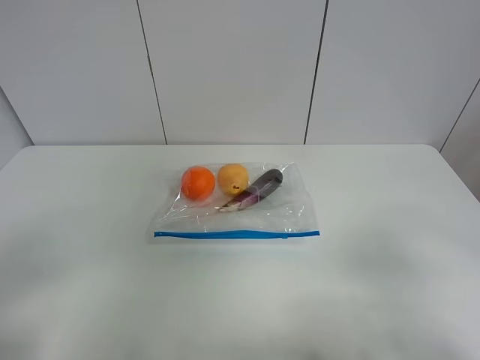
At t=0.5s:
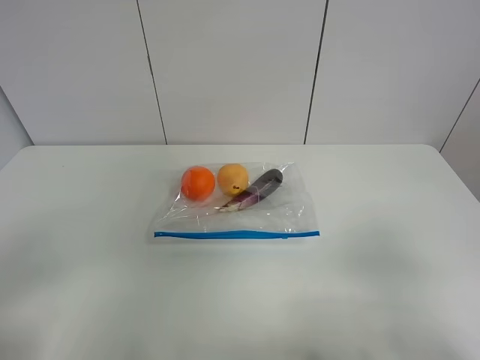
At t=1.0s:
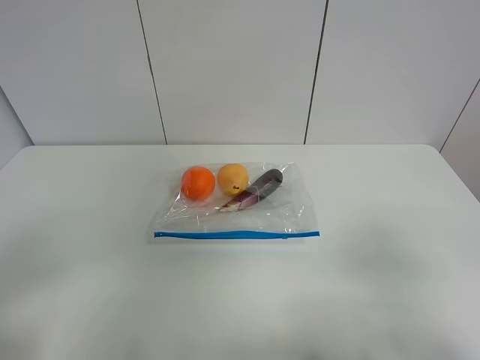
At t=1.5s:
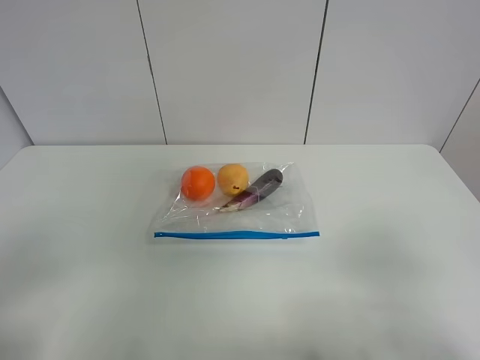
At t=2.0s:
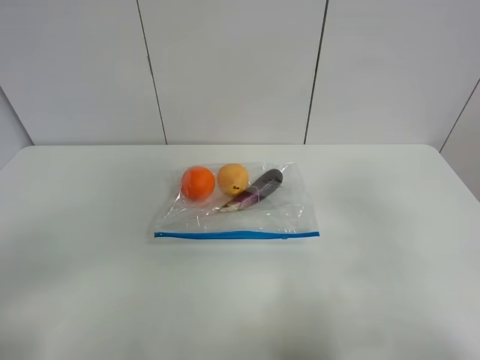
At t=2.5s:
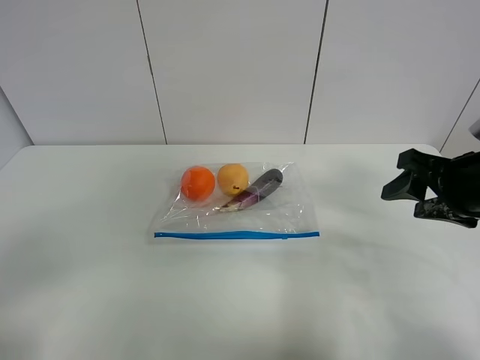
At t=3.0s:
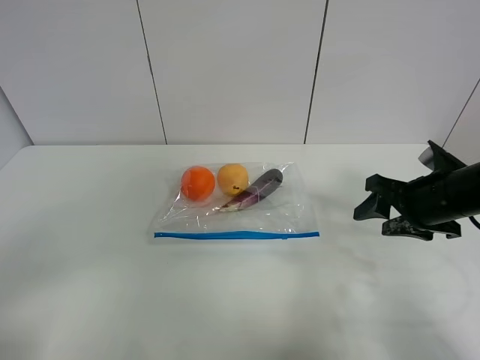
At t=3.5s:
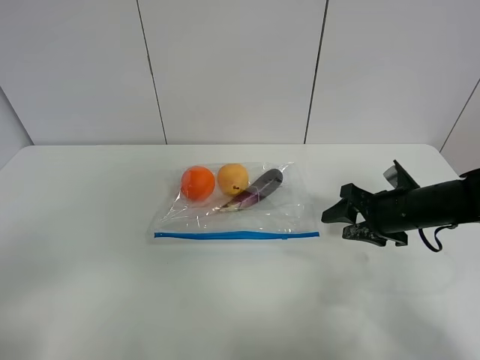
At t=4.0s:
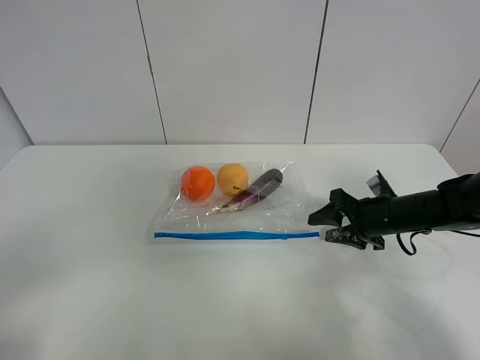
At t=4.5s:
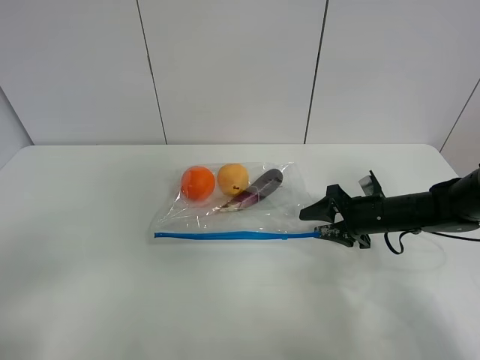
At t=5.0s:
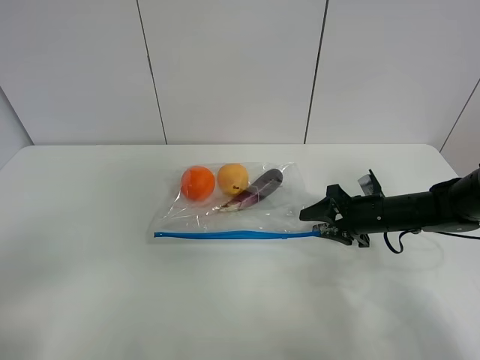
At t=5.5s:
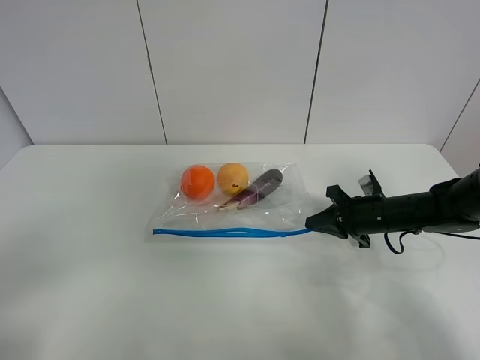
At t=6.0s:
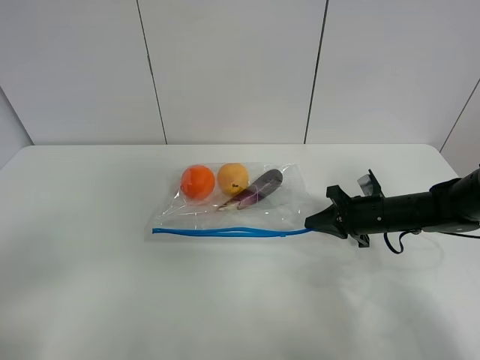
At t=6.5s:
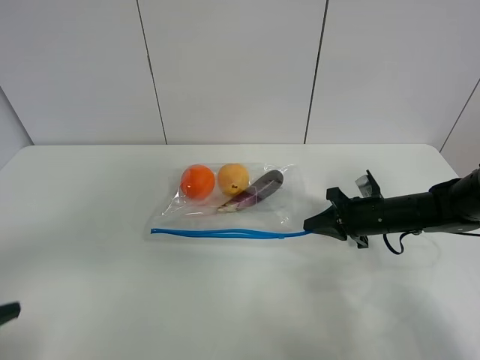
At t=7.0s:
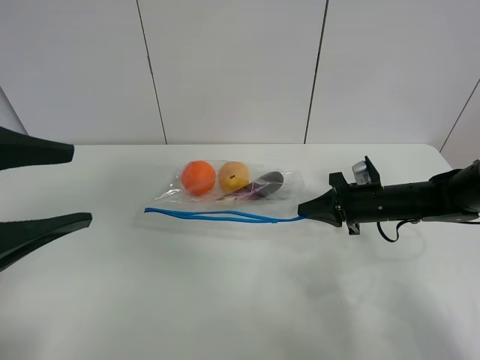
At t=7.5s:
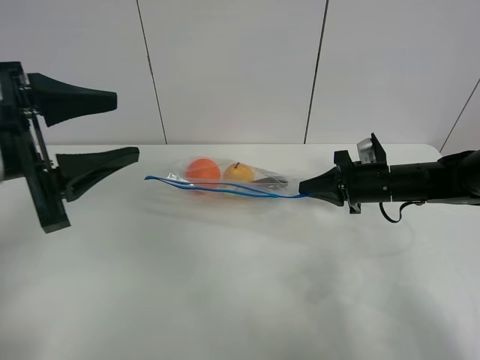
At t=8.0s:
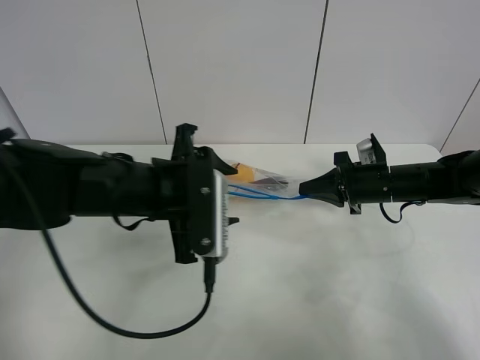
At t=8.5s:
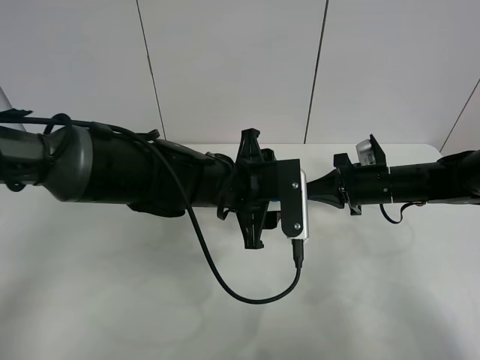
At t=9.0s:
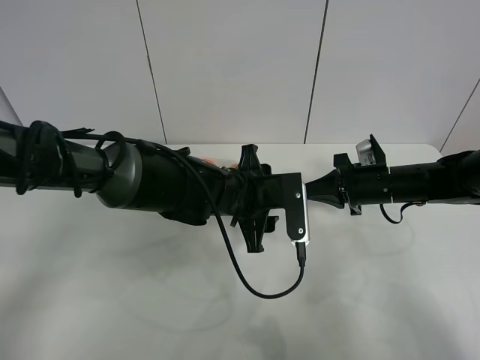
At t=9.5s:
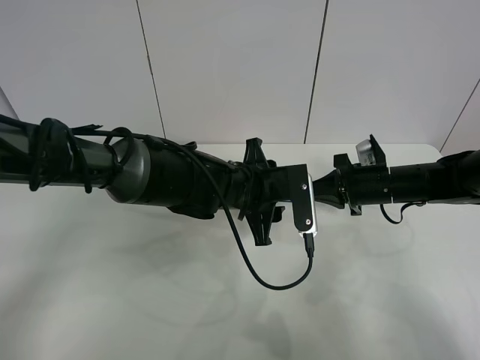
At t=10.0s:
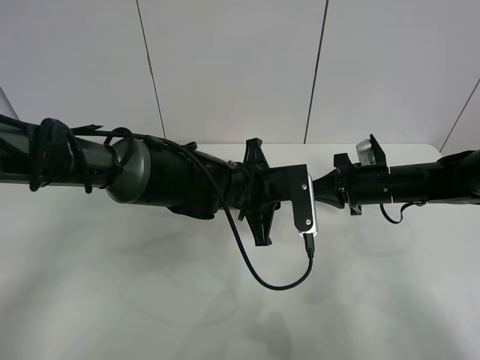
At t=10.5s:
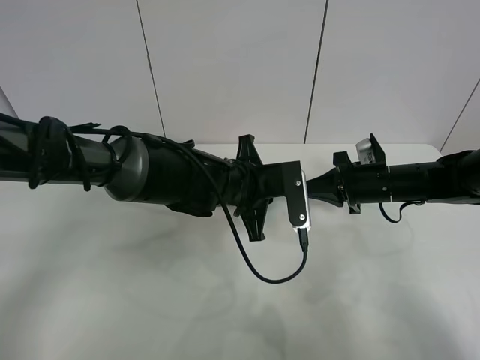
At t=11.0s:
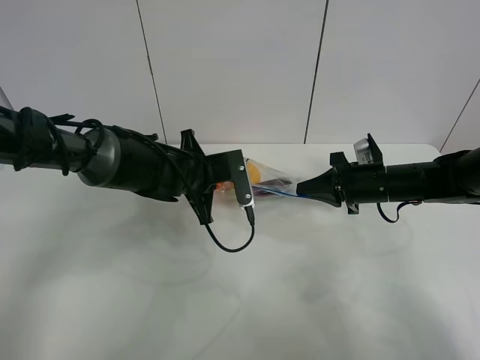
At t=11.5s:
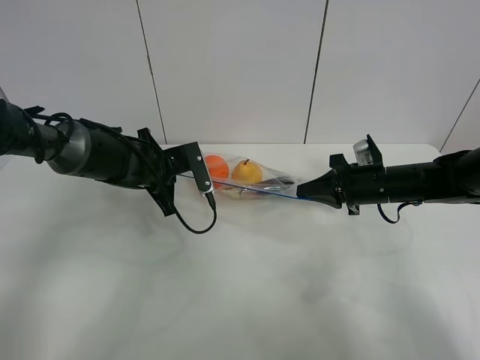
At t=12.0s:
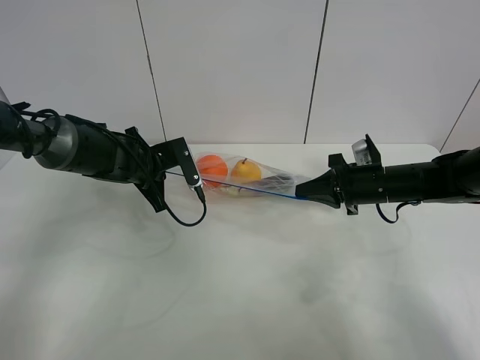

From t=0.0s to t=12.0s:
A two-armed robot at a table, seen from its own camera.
Step, from t=0.0s to t=5.5s: Grasp the fruit bag with right gripper.
Step, from t=6.0s to t=7.5s: Lift the fruit bag with your right gripper.
From t=0.0s to t=2.0s: The right gripper travels forward and upward by approximately 10 cm.
From t=2.0s to t=4.0s: The right gripper goes approximately 30 cm downward and forward.
From t=4.0s to t=6.0s: The right gripper closes up.
From t=6.0s to t=8.0s: The left gripper travels forward and to the right by approximately 35 cm; the right gripper travels upward by some 5 cm.
From t=8.0s to t=10.0s: The left gripper is displaced to the right, forward and downward by roughly 15 cm, and closes its fingers.
From t=10.0s to t=12.0s: The left gripper travels to the left and forward by about 20 cm.

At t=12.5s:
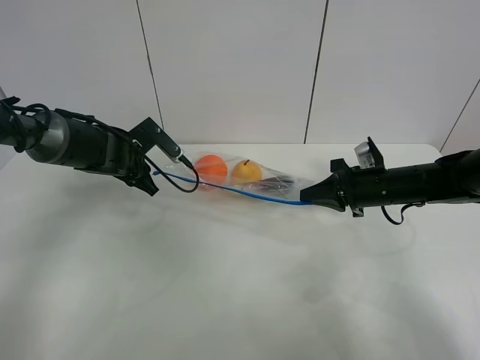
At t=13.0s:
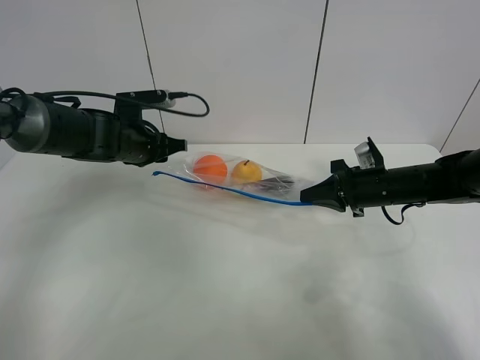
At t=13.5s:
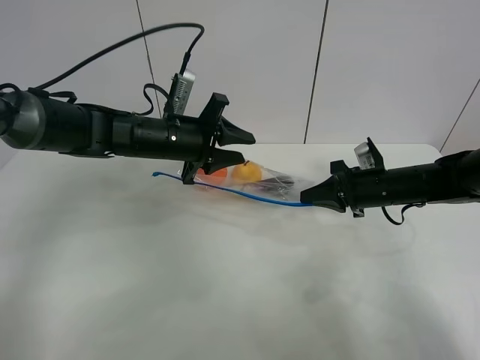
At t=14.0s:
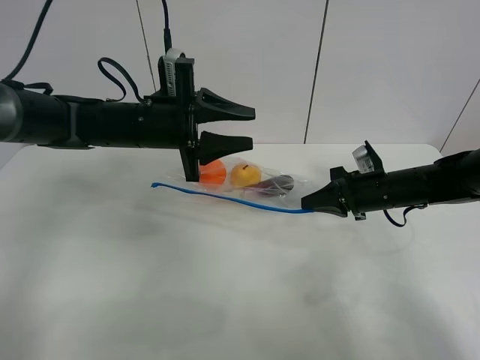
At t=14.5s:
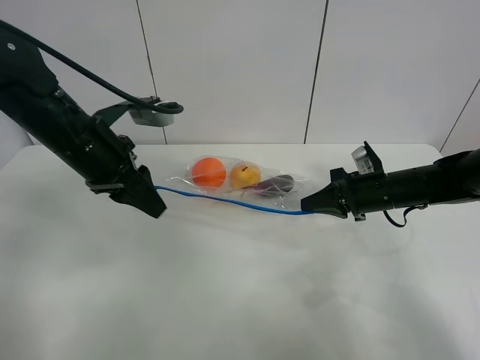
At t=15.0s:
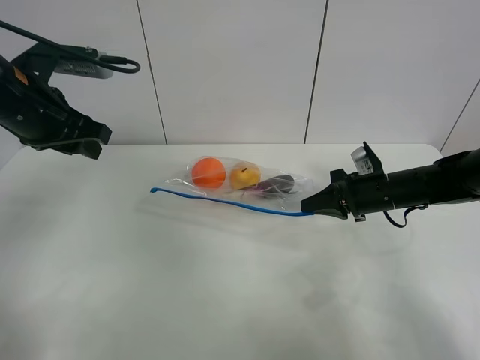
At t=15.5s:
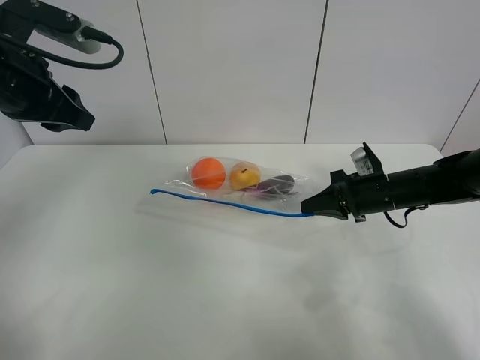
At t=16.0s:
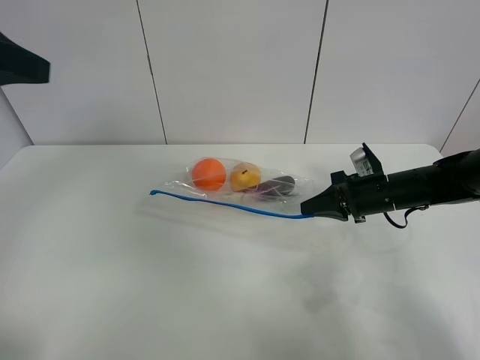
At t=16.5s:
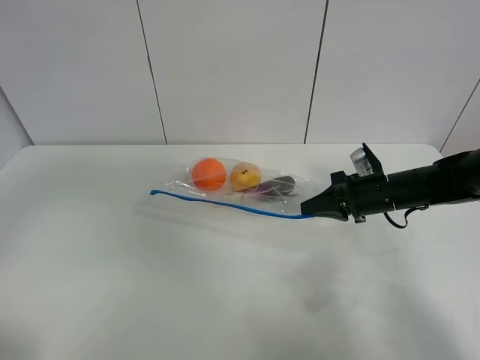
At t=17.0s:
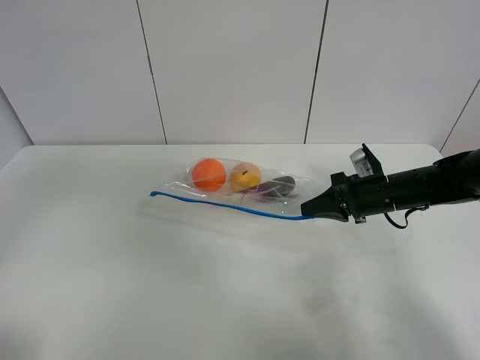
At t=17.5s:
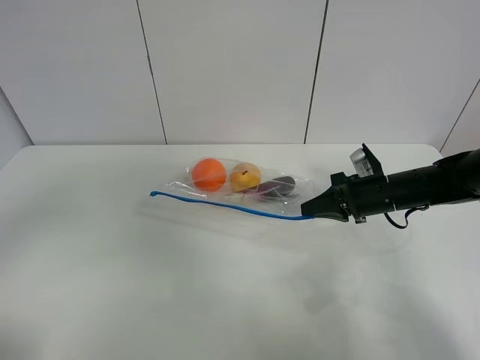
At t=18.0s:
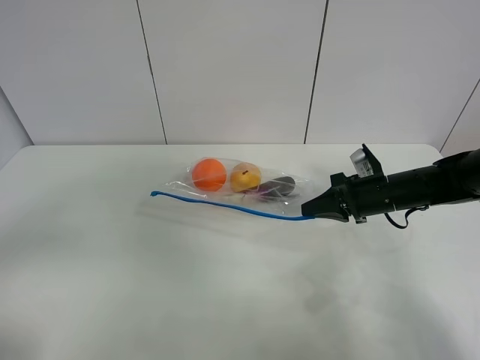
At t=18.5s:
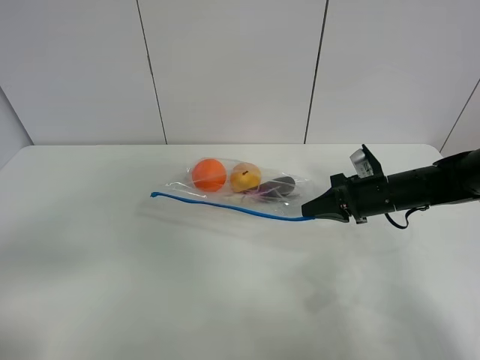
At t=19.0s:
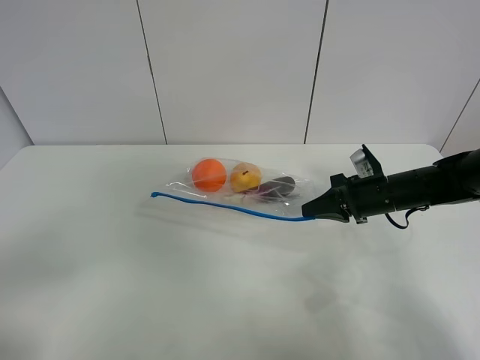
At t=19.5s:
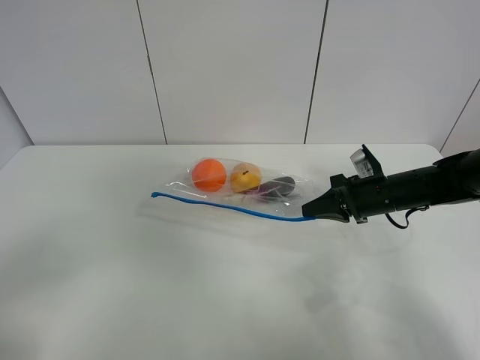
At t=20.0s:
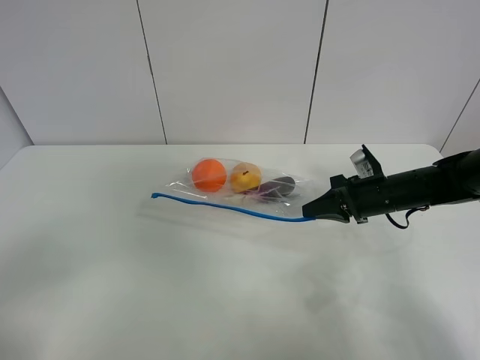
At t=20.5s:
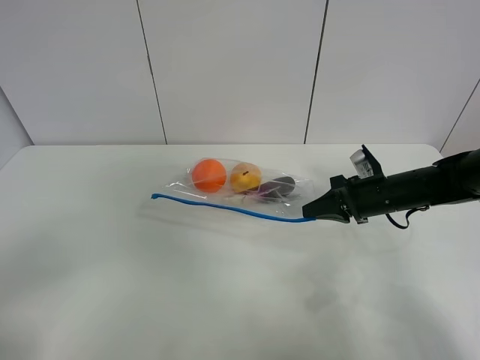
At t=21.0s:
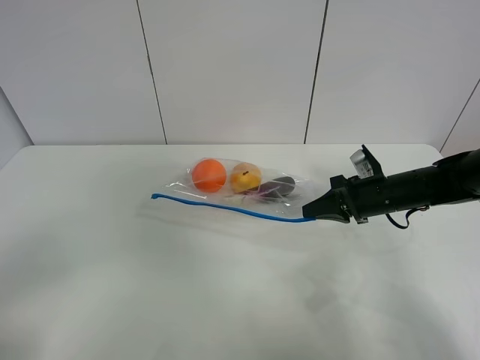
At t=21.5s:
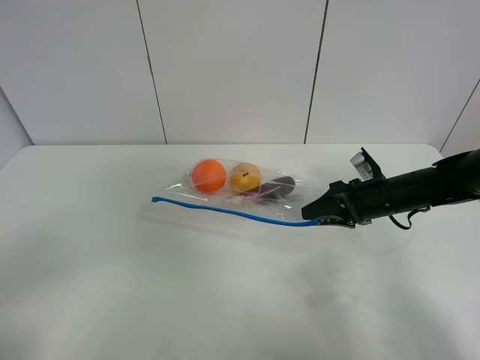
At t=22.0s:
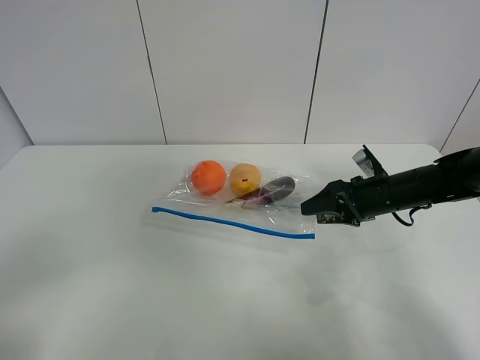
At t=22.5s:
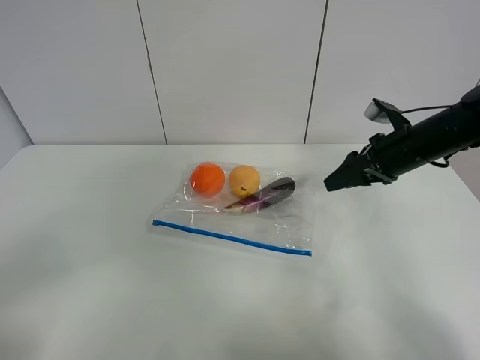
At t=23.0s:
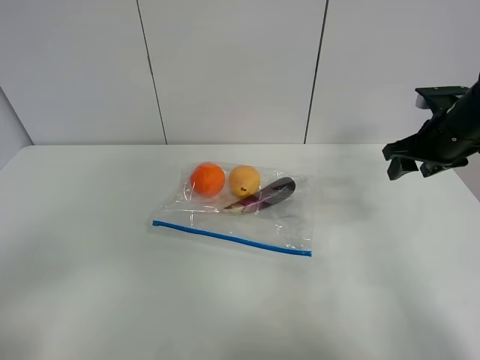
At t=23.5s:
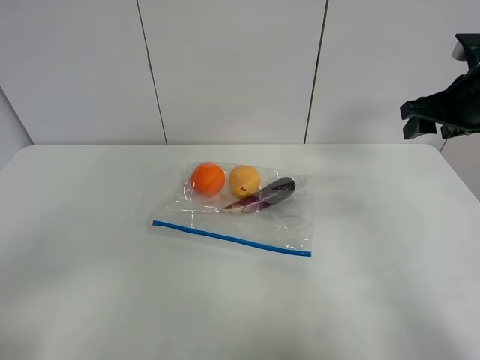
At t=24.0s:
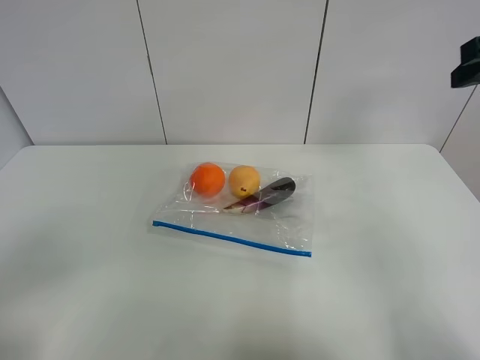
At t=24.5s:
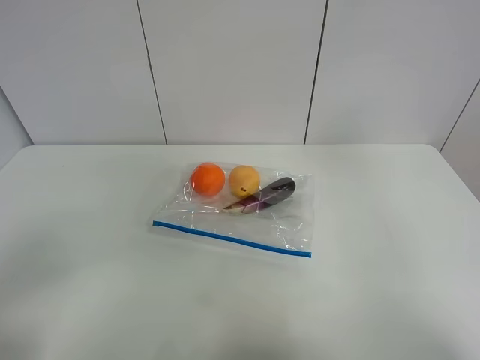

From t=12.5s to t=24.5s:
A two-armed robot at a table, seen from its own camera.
From t=12.5s to t=14.5s: The left gripper is displaced upward and backward by approximately 15 cm.
From t=14.5s to t=16.5s: The left gripper heads backward, upward and to the left, covering some 30 cm.
From t=16.5s to t=18.5s: The left gripper shifts some 15 cm downward.
From t=20.5s to t=22.5s: The right gripper is displaced upward by about 10 cm, and opens.
From t=22.5s to t=24.5s: The right gripper goes roughly 35 cm backward and upward.

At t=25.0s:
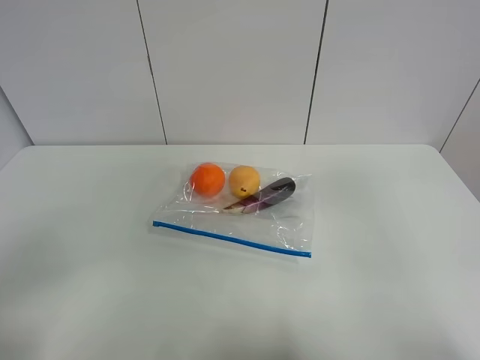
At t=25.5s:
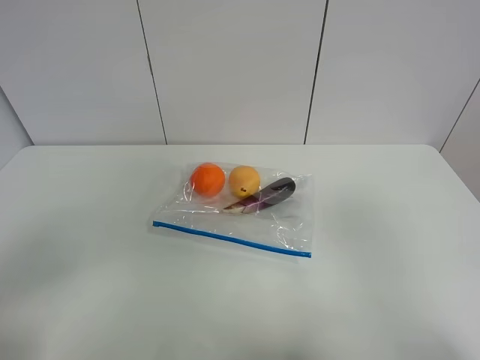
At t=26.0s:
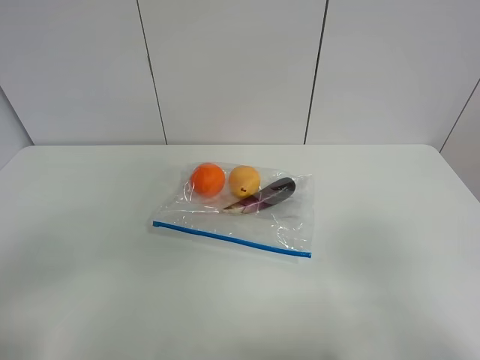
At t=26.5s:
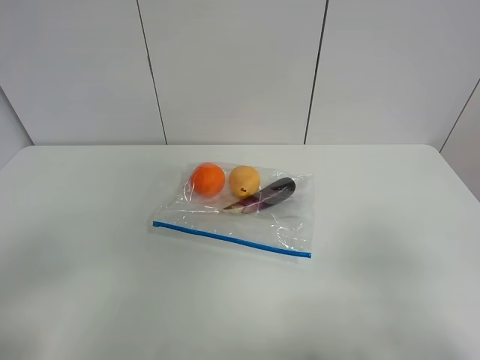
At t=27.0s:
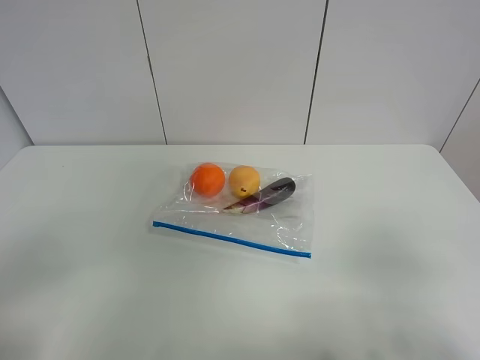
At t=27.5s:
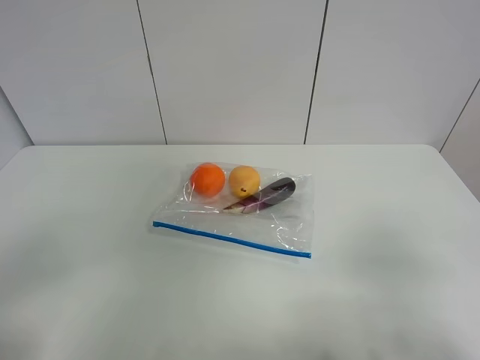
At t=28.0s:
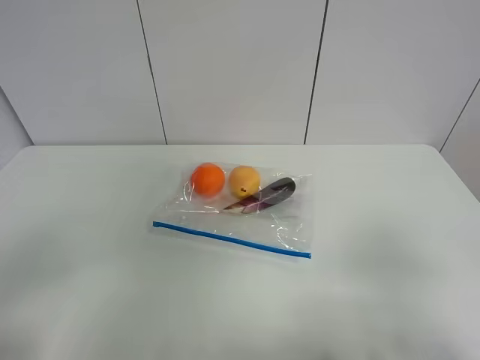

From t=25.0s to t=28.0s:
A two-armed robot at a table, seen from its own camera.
From t=26.5s to t=28.0s: Neither gripper changes place.
